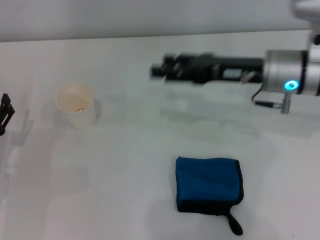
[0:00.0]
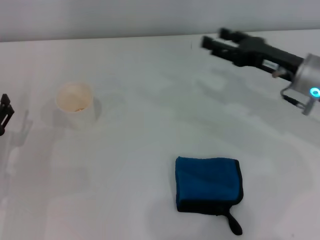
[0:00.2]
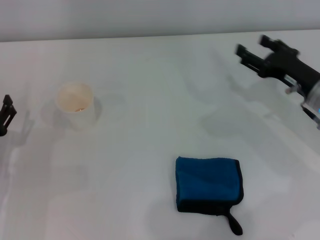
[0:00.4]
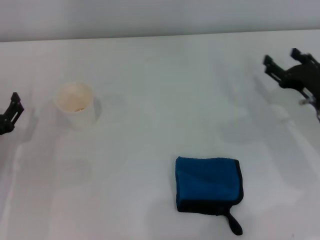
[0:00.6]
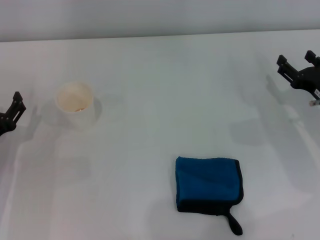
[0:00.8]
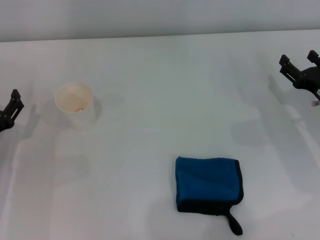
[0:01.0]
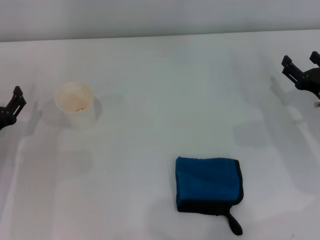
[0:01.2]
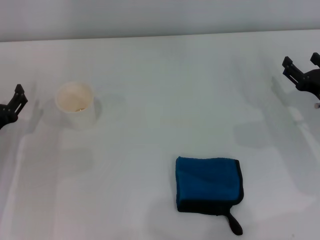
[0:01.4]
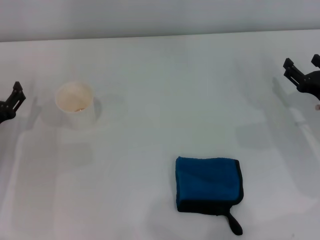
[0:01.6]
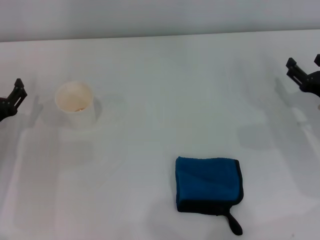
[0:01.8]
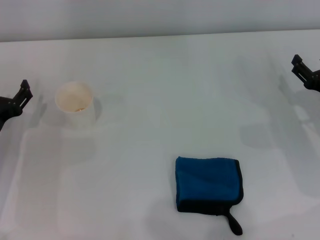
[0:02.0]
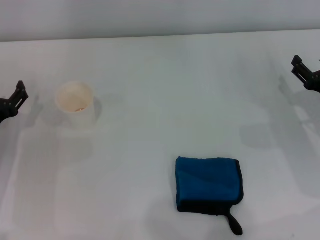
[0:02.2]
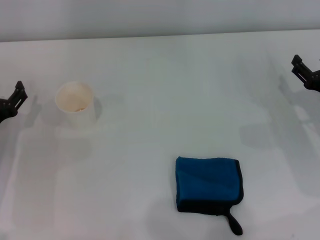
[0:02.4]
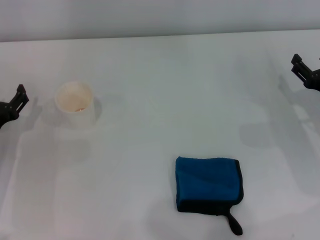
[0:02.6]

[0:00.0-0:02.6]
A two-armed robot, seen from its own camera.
0:00.0 to 0:01.2: The right gripper heads to the right, downward and backward, covering approximately 15 cm.
0:01.2 to 0:02.6: The grippers make only small movements.

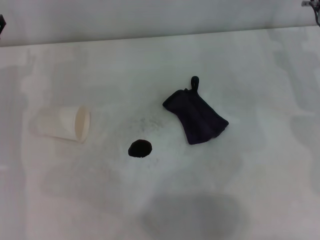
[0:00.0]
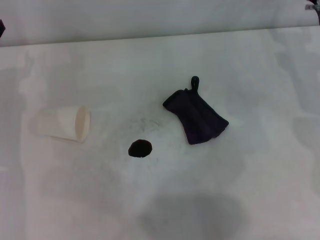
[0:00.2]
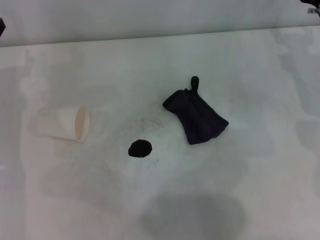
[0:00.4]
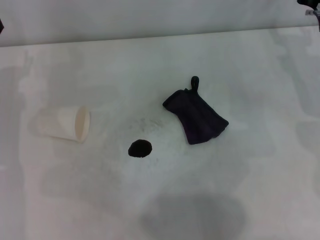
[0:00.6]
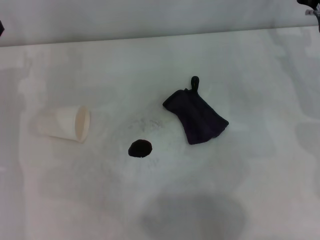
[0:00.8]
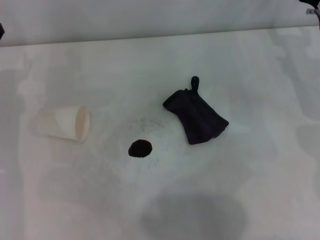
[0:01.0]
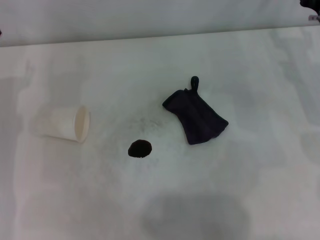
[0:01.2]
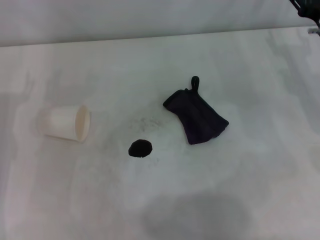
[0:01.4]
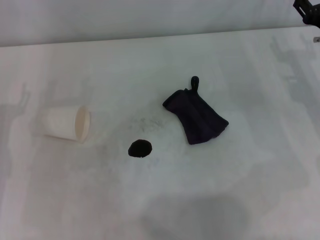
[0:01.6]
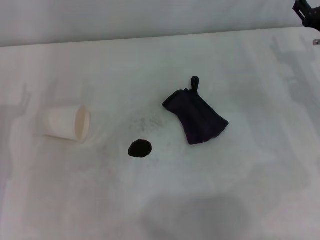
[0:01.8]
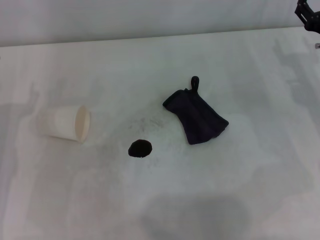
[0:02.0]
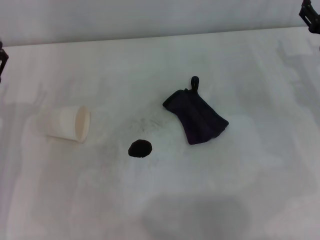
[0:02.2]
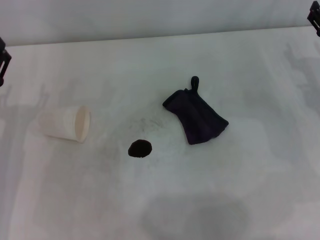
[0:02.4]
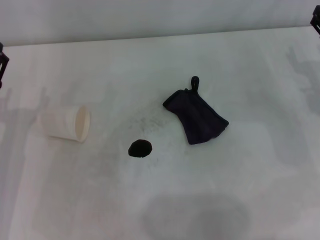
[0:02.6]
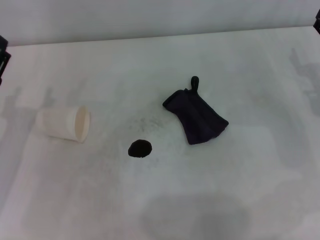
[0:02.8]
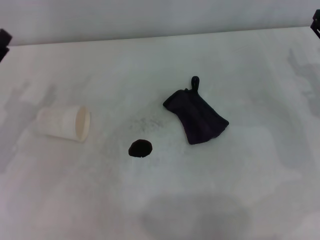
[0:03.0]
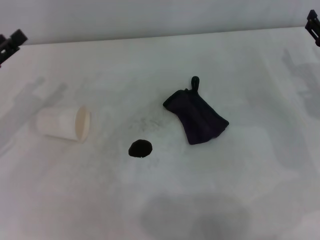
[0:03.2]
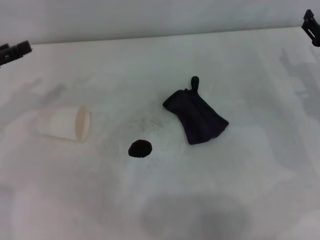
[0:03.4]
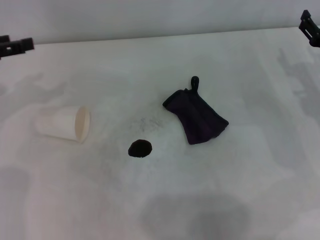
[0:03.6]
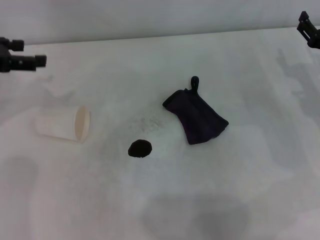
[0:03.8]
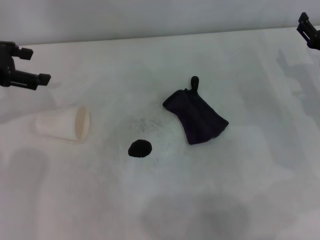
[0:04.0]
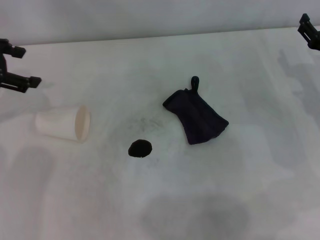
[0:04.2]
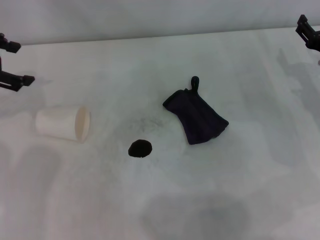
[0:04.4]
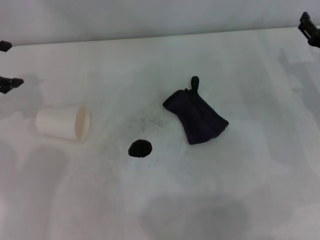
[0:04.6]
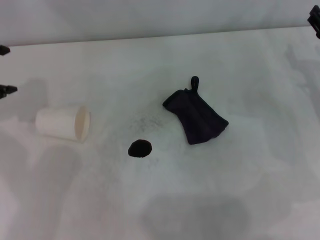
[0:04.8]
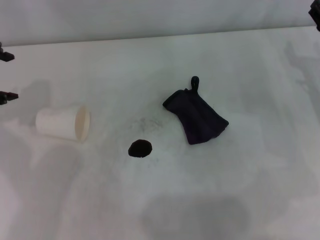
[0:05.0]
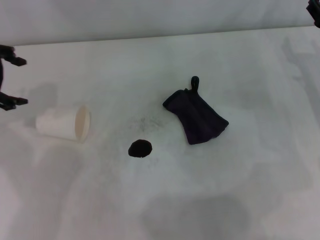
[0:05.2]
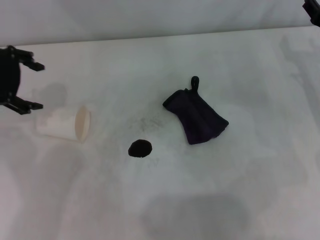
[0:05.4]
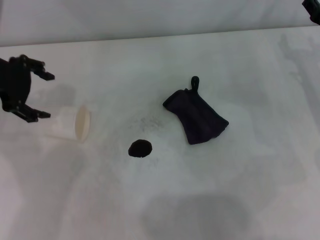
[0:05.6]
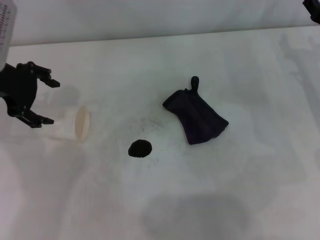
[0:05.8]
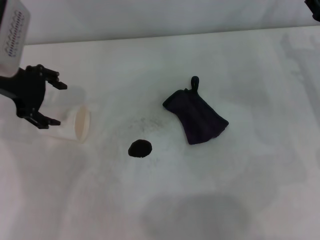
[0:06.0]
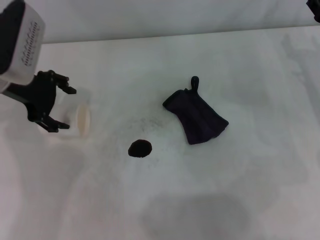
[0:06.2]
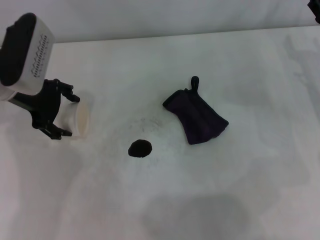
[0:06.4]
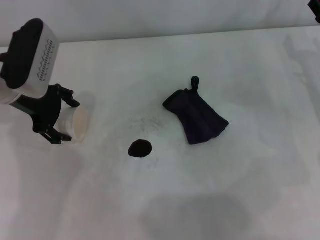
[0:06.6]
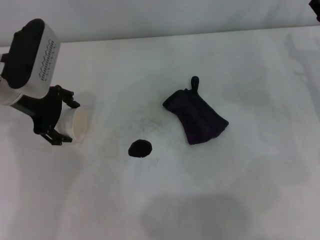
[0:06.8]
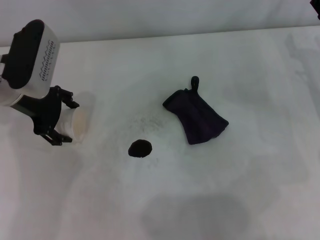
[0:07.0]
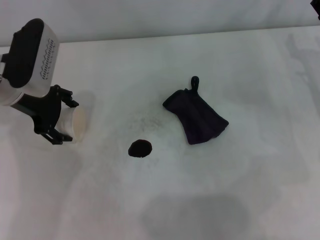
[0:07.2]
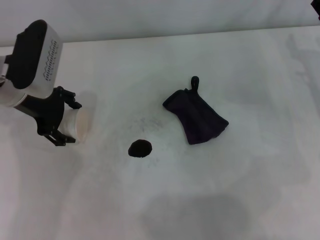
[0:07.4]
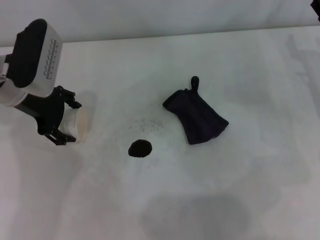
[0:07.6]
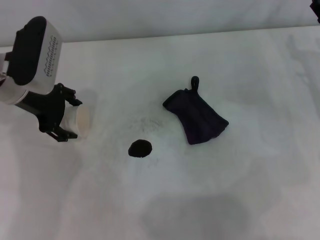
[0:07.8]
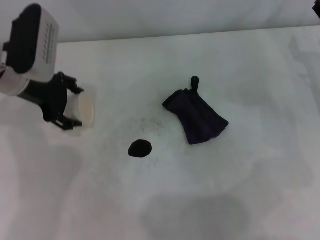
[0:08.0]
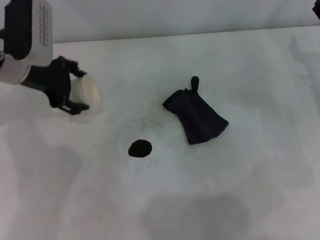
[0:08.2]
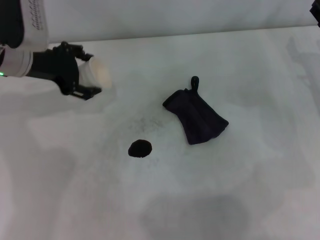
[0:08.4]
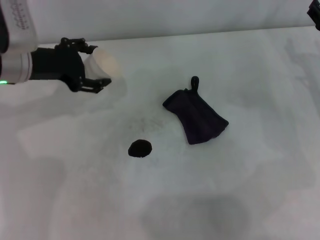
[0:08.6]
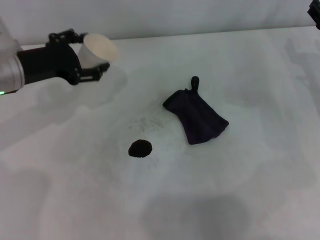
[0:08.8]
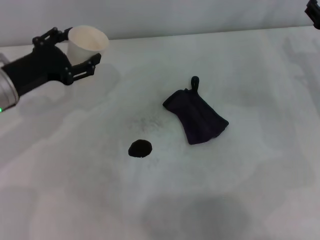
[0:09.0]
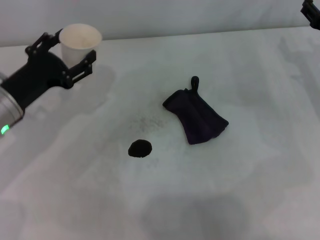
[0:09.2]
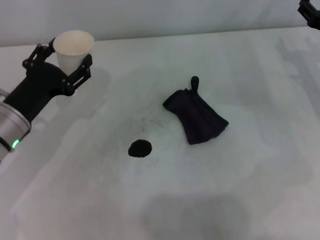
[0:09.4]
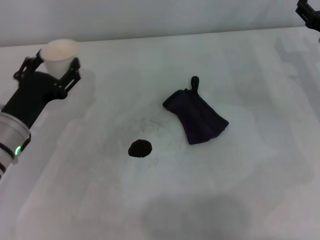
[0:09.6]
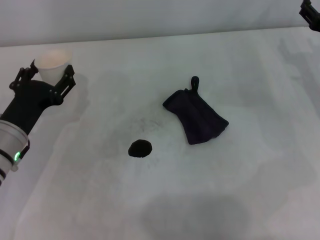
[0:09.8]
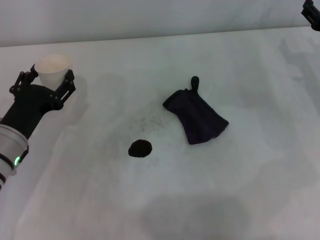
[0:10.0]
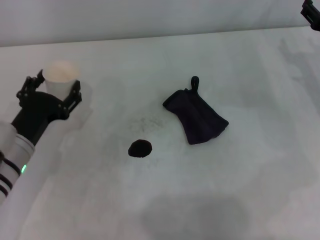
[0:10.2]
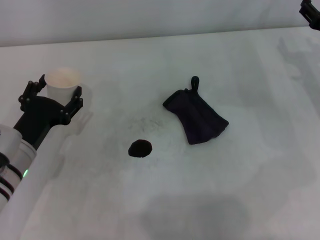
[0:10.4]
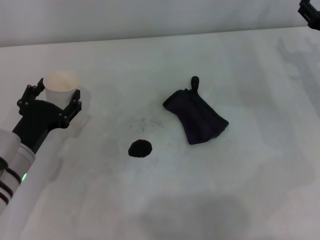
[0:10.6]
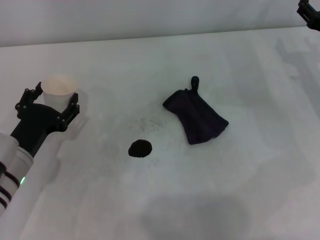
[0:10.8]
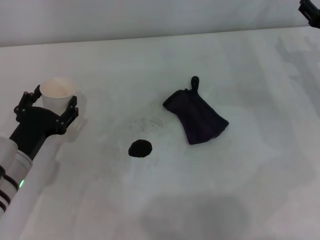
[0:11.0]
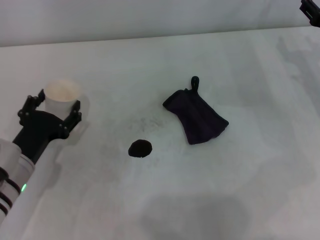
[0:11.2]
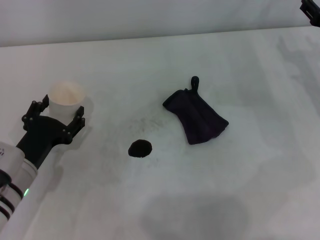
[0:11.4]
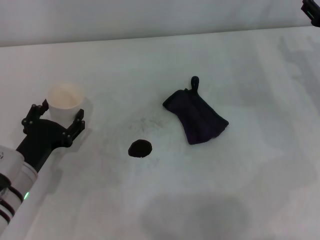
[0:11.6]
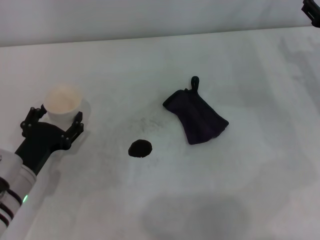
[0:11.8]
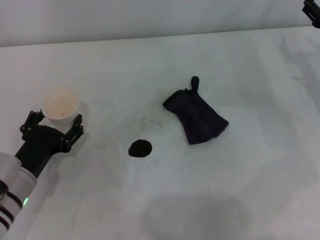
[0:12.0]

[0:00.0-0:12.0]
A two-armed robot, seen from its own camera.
Step, 0:00.0 to 0:08.2: Grasp the paper cup with the left gripper.
0:00.0 to 0:01.6: The right gripper is displaced backward by some 5 cm.
0:03.0 to 0:04.4: The left gripper moves upward and forward, approximately 15 cm.
0:04.4 to 0:06.0: The left gripper is displaced to the right by some 5 cm.
0:06.0 to 0:07.6: The left gripper changes place by about 5 cm.
0:07.6 to 0:09.0: The left gripper changes place by approximately 5 cm.
0:09.0 to 0:10.4: The left gripper travels downward and backward by about 10 cm.
0:10.4 to 0:12.0: The grippers move only a little.

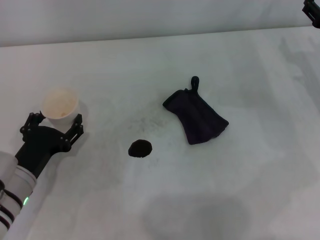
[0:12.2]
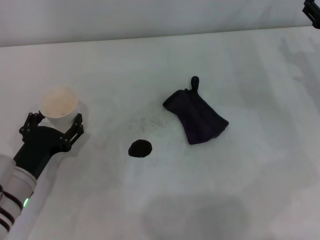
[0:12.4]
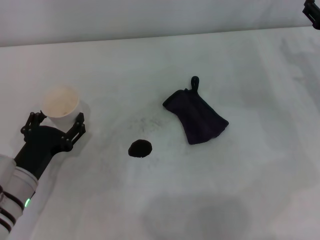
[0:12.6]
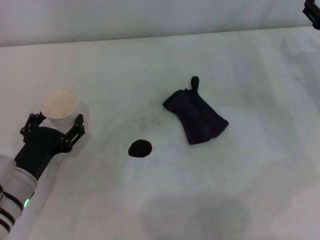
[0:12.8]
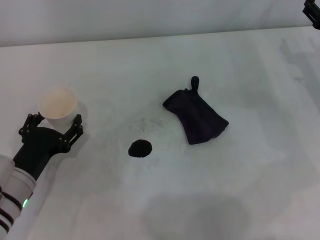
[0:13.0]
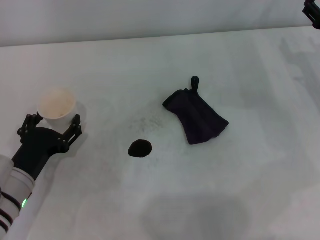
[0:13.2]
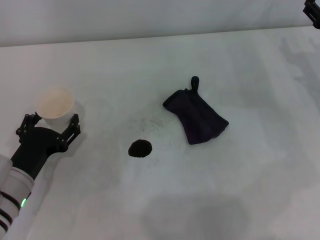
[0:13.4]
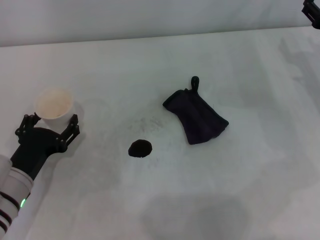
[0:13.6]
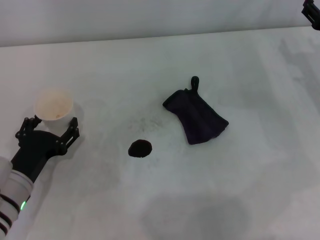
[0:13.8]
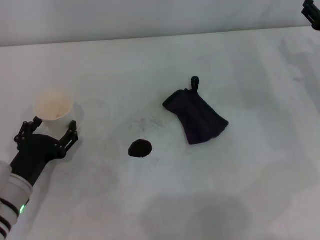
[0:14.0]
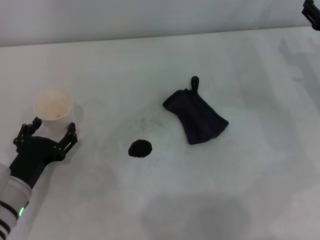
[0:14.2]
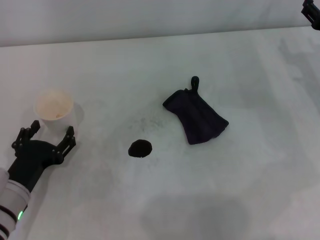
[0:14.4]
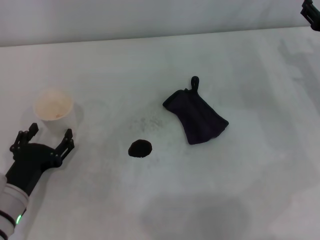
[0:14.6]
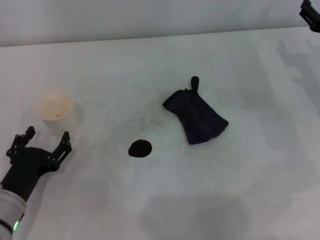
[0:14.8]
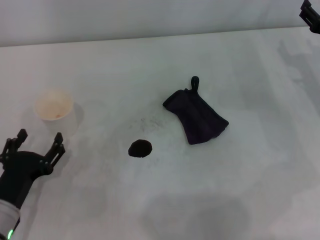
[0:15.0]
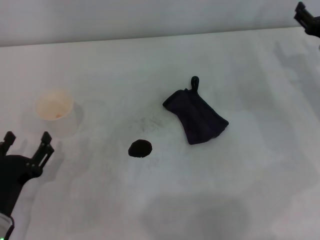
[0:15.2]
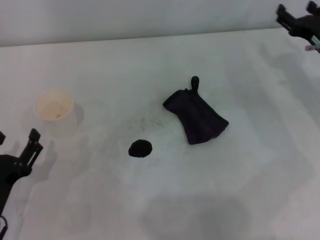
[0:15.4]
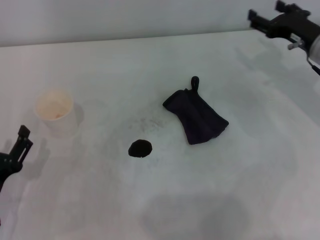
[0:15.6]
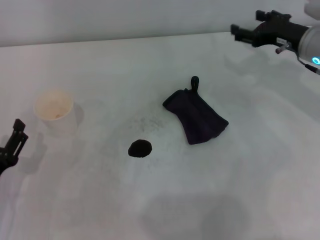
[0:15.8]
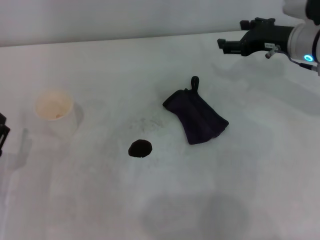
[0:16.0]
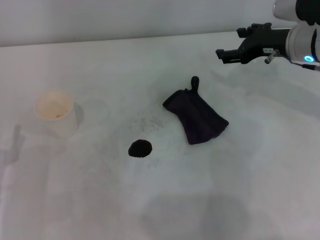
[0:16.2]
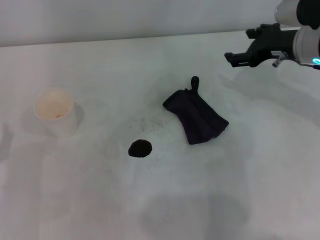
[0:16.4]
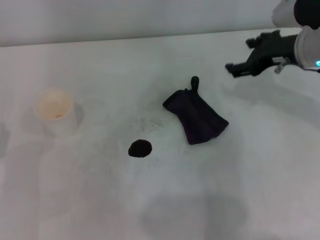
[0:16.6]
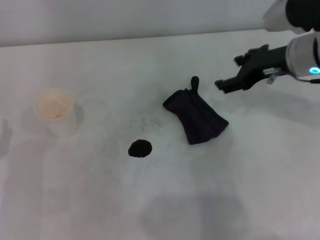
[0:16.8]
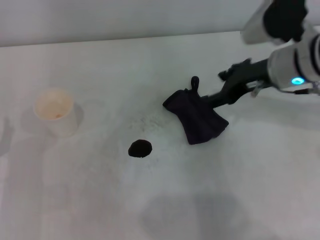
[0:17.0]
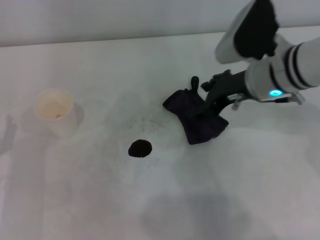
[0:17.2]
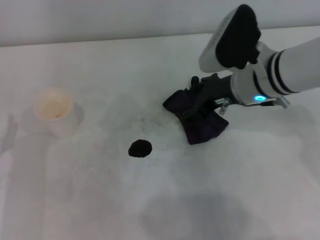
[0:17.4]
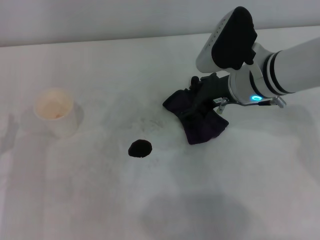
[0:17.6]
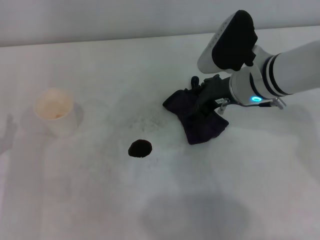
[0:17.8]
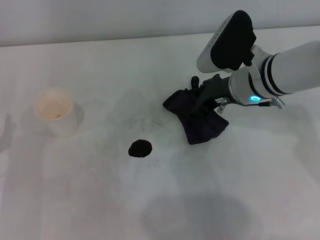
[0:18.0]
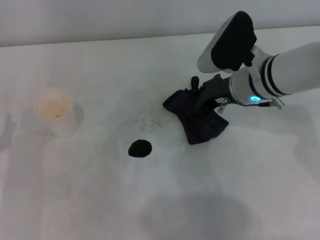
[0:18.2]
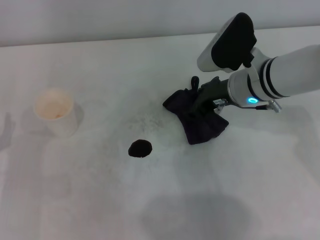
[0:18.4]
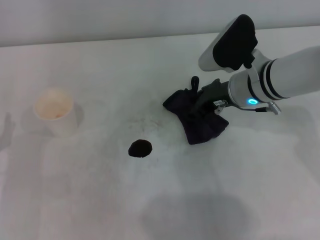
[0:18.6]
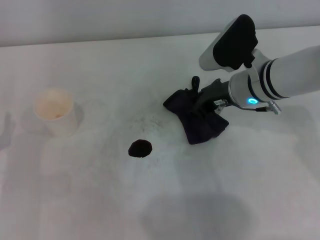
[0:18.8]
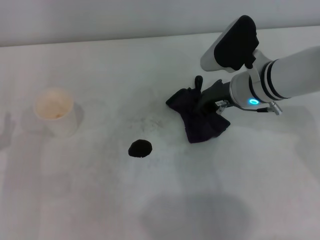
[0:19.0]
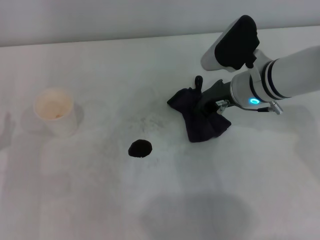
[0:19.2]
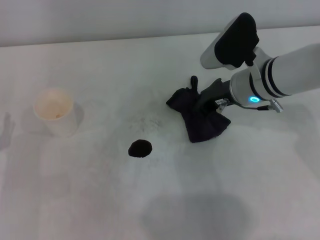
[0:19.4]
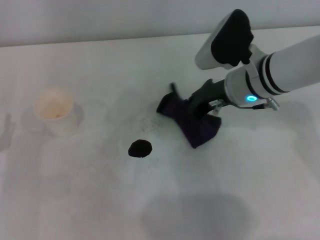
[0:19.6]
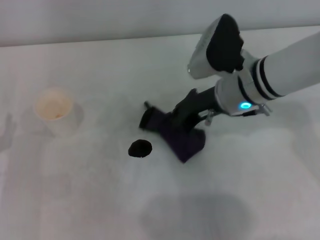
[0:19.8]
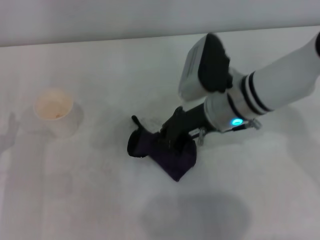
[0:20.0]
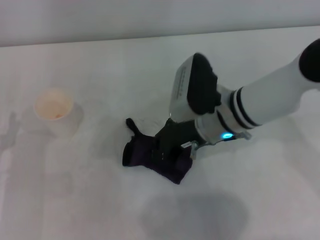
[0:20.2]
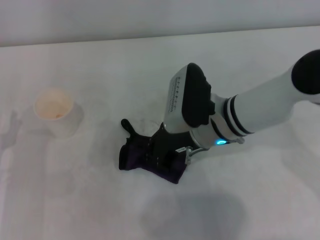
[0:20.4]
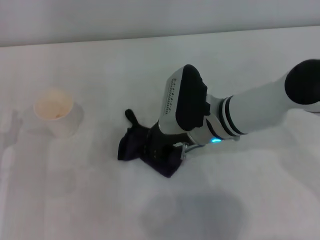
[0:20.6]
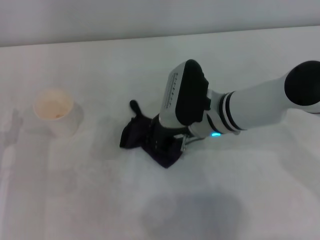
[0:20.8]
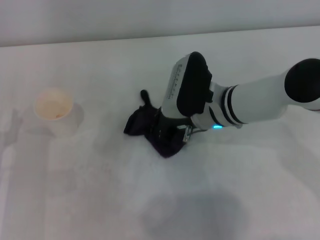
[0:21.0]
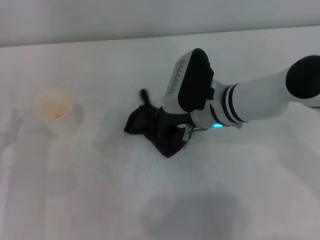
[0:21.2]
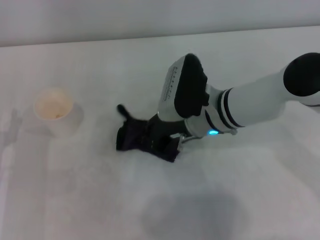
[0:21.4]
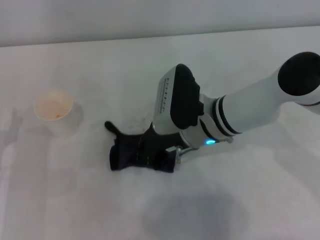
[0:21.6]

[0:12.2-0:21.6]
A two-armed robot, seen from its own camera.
Step, 0:14.0 to 0:18.0: Grasp the rag with the right gripper.
0:12.2 to 0:13.8: Both grippers stay about where they are.
0:13.8 to 0:15.4: The left gripper travels backward by roughly 5 cm.
0:15.4 to 0:17.0: The right gripper shifts roughly 15 cm to the left and upward. The left gripper shifts by some 5 cm.
0:17.0 to 0:18.4: The right gripper is displaced downward by about 5 cm.
0:18.4 to 0:20.0: The right gripper closes.
0:20.0 to 0:21.6: The right gripper changes place by some 5 cm.
